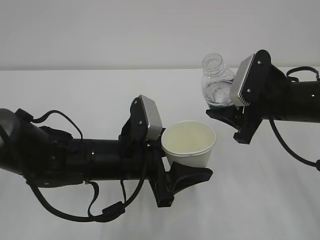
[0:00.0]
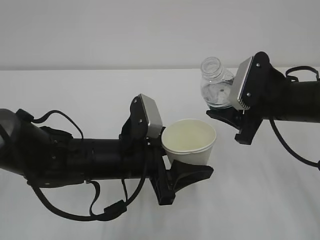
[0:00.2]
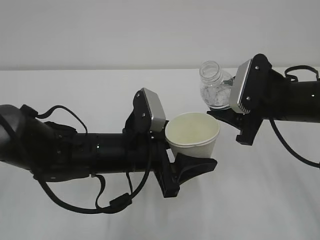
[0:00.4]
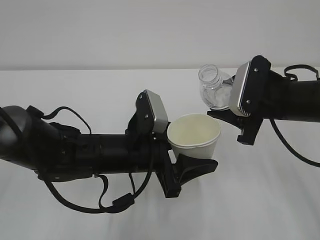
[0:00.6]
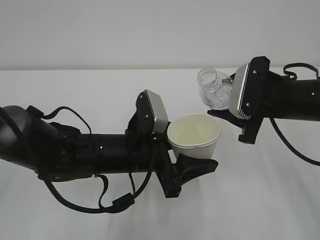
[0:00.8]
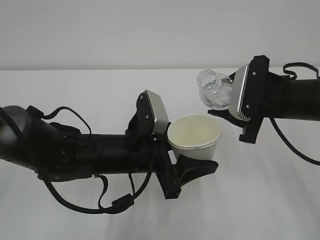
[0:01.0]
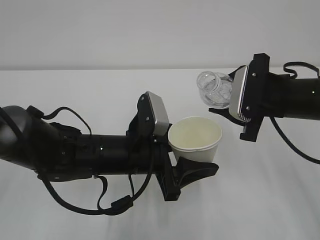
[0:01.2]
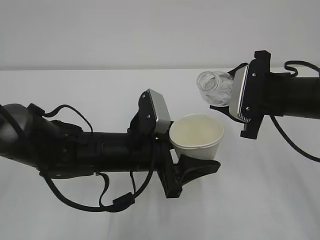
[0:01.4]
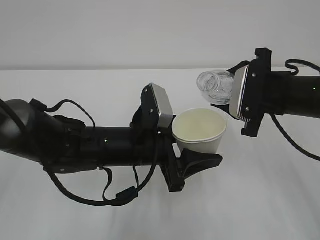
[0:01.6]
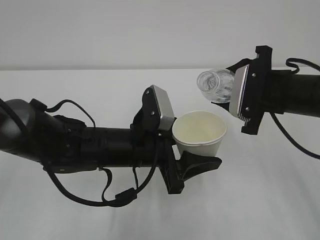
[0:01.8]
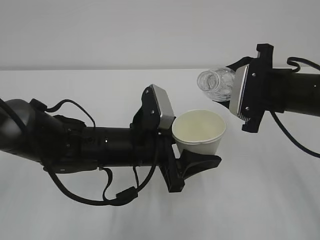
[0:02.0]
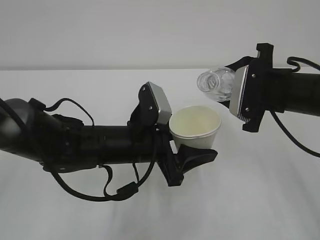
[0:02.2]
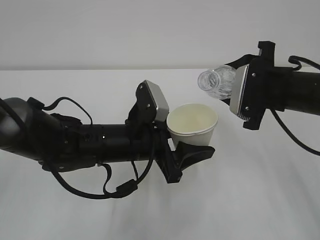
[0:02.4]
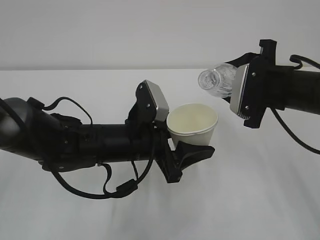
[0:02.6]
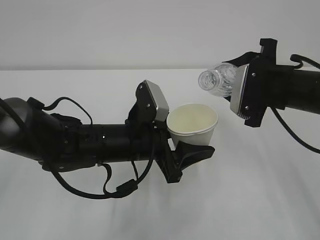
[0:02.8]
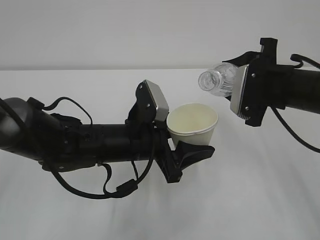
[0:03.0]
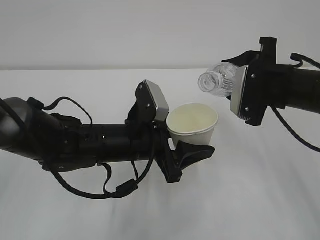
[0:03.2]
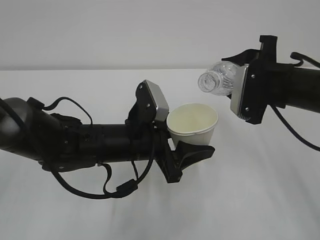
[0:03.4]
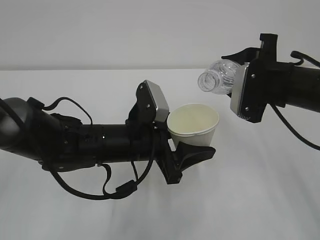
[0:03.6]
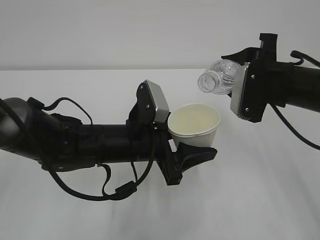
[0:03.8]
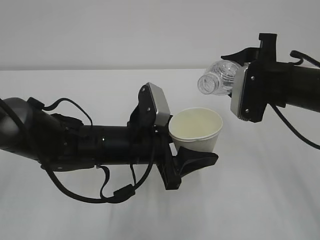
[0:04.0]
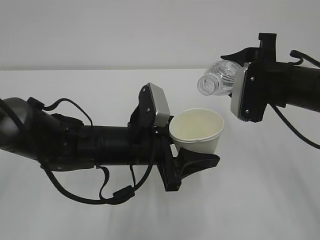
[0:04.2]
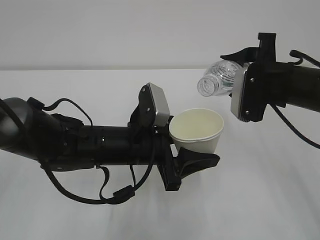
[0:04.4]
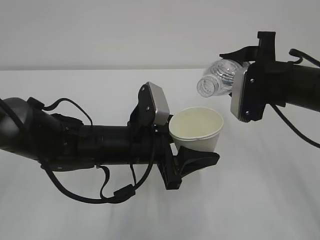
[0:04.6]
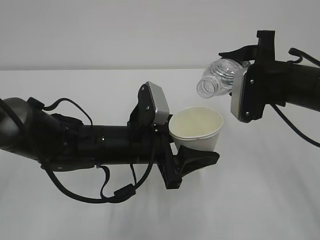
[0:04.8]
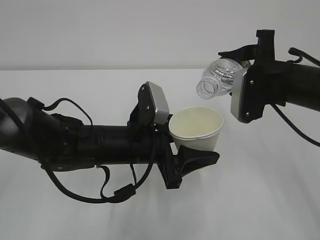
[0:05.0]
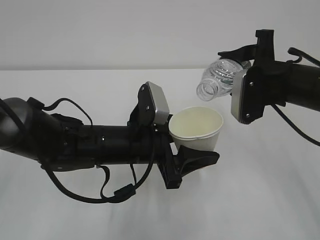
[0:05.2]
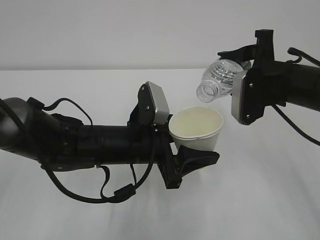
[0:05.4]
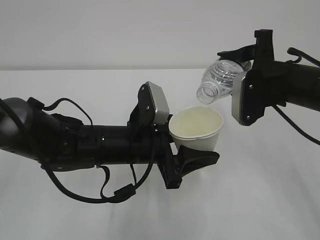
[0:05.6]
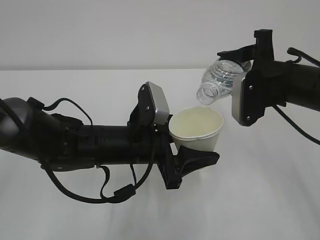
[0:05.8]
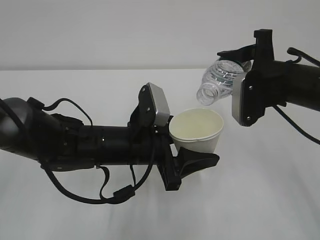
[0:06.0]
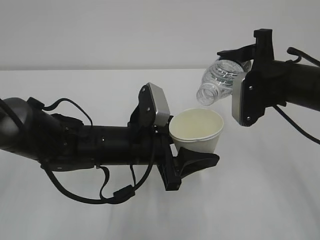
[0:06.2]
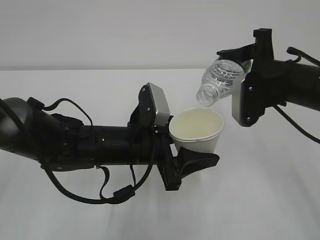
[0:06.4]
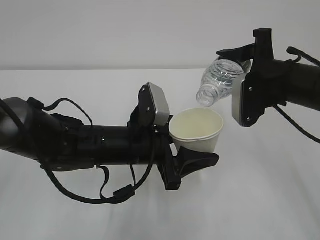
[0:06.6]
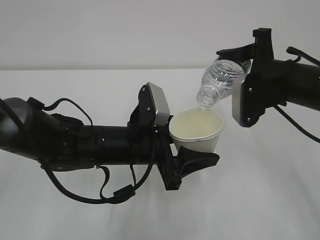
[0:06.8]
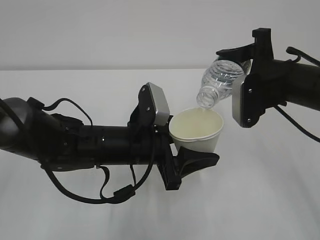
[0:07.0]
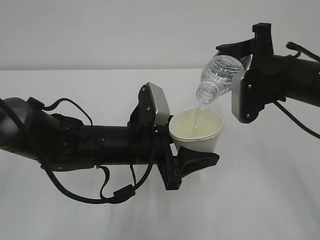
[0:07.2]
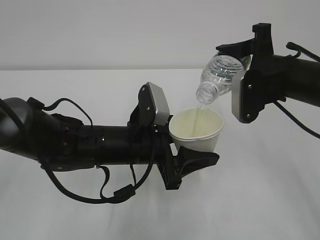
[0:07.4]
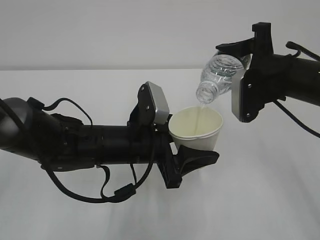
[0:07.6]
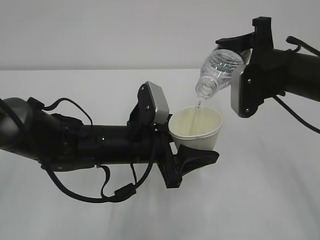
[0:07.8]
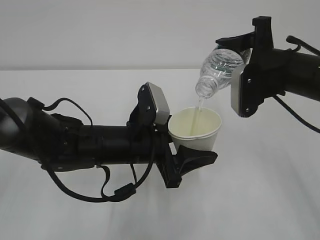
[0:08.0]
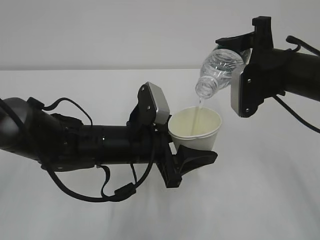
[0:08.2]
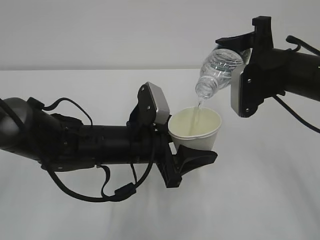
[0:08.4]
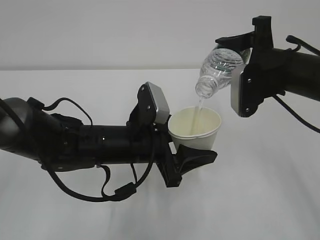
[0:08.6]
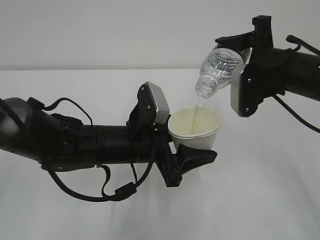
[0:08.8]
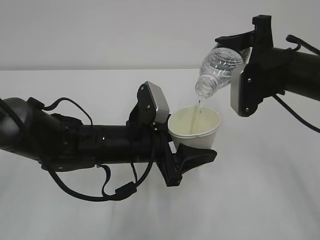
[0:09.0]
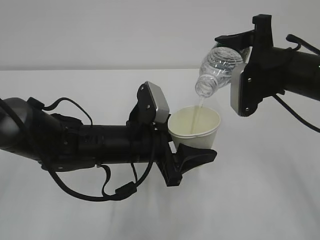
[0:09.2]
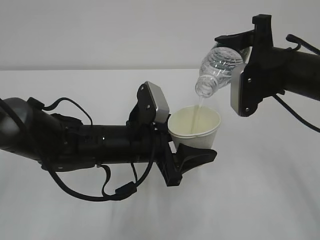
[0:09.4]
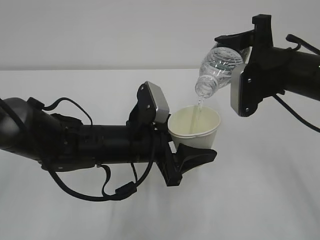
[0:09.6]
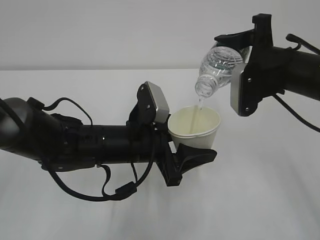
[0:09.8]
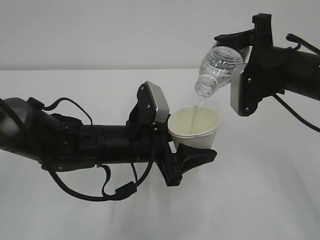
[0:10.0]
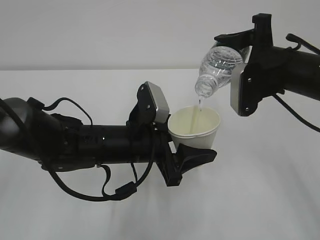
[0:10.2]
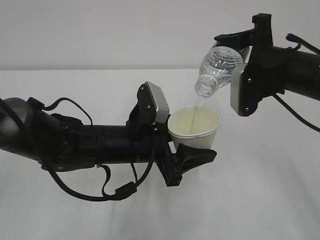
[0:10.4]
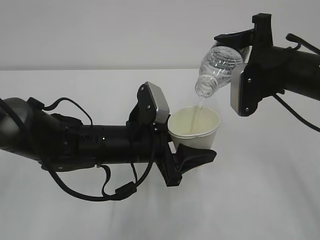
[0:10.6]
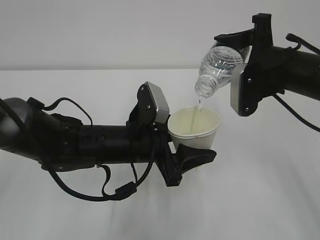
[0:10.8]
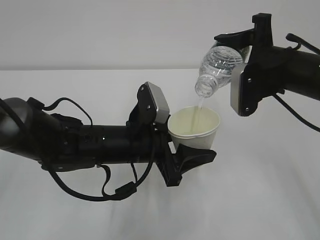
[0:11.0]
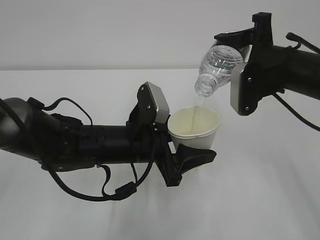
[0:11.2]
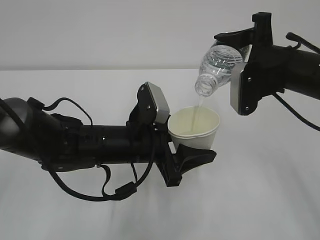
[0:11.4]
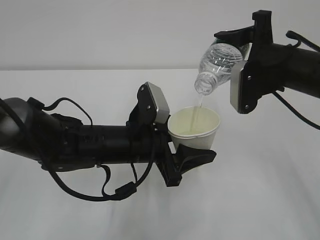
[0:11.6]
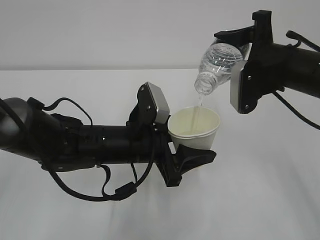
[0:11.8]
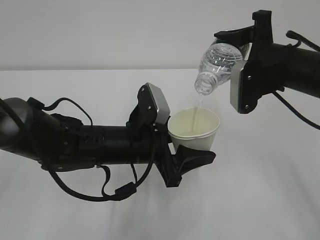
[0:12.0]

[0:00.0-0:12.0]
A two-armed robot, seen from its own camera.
0:01.6 to 0:04.4: The grippers make only small movements.
0:04.4 to 0:07.6: The grippers move only a little.
0:07.6 to 0:12.0: The two grippers keep their place.

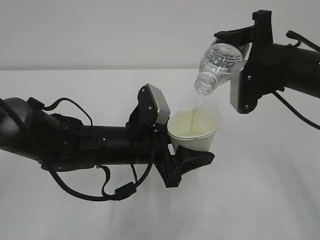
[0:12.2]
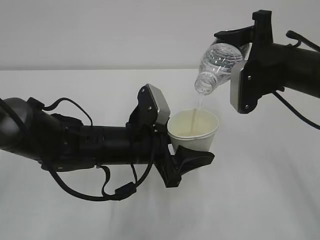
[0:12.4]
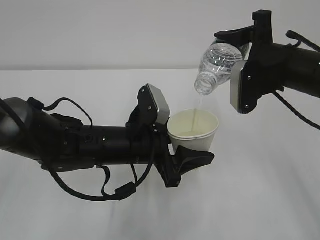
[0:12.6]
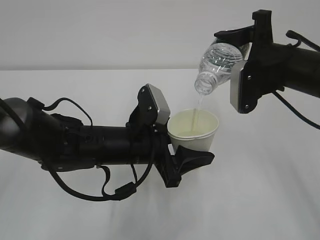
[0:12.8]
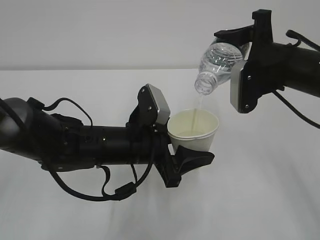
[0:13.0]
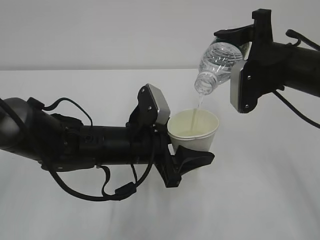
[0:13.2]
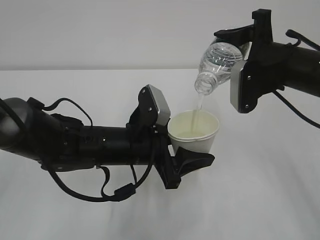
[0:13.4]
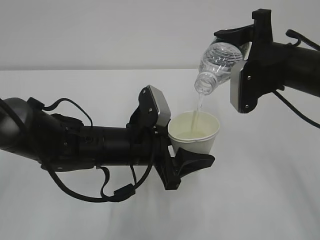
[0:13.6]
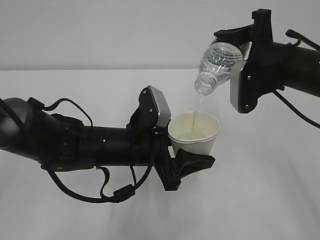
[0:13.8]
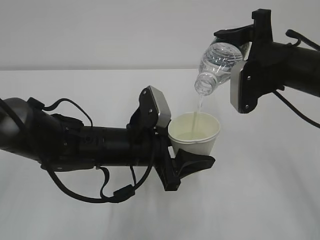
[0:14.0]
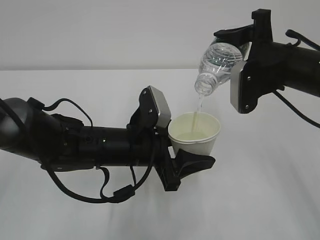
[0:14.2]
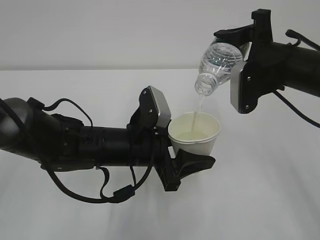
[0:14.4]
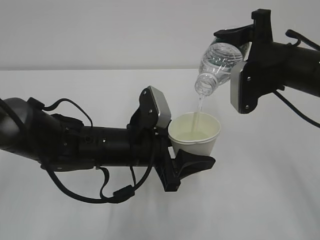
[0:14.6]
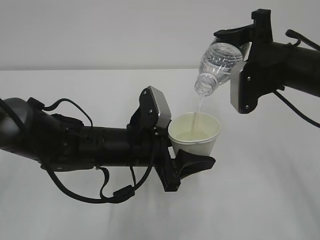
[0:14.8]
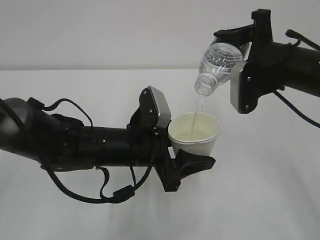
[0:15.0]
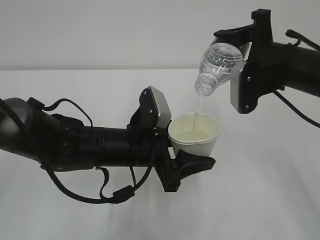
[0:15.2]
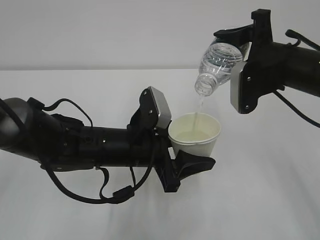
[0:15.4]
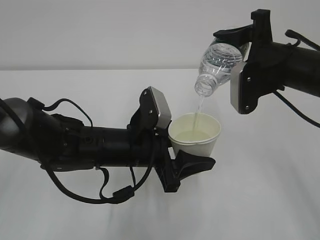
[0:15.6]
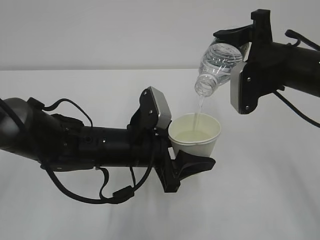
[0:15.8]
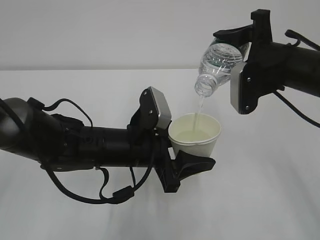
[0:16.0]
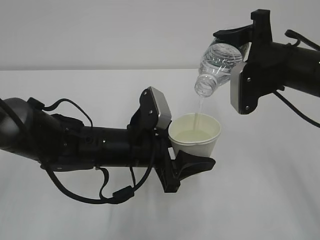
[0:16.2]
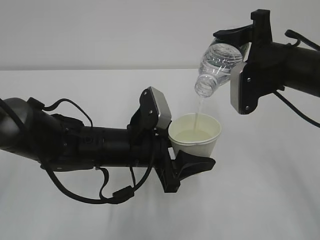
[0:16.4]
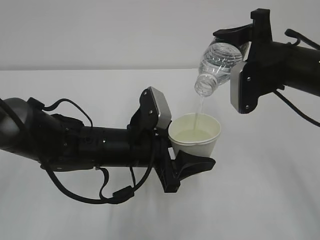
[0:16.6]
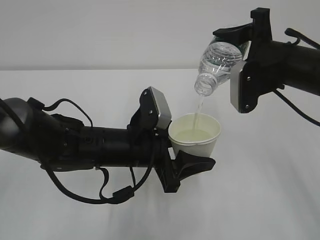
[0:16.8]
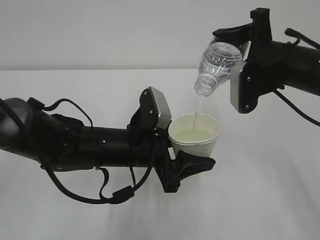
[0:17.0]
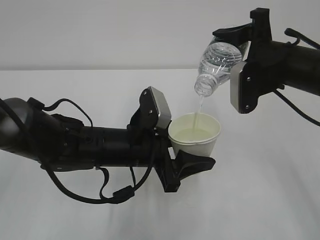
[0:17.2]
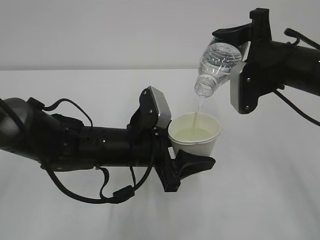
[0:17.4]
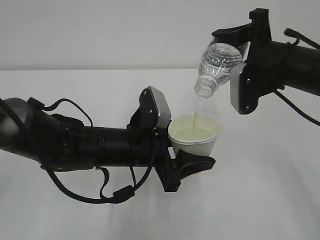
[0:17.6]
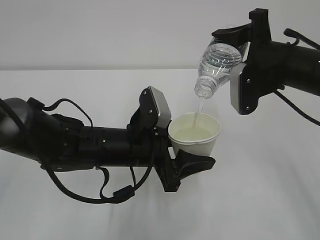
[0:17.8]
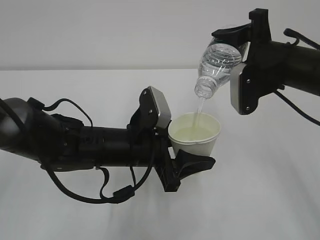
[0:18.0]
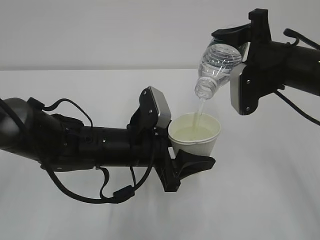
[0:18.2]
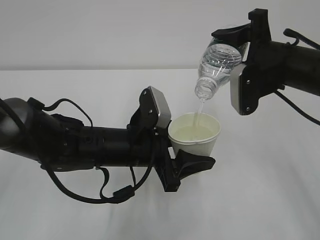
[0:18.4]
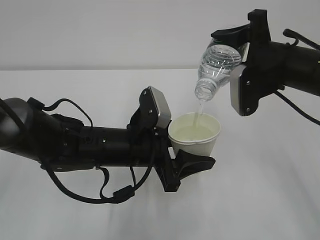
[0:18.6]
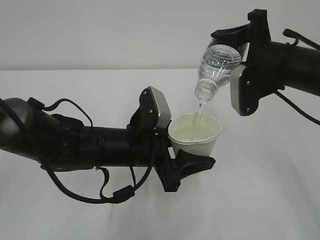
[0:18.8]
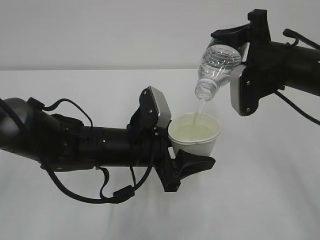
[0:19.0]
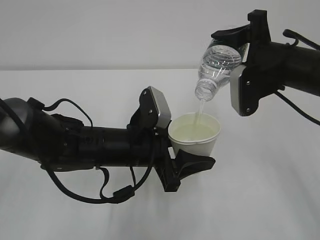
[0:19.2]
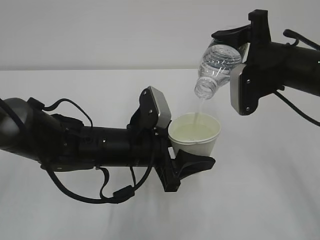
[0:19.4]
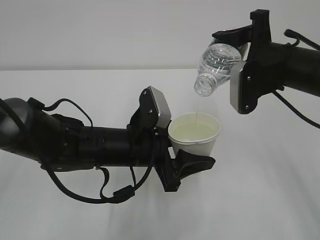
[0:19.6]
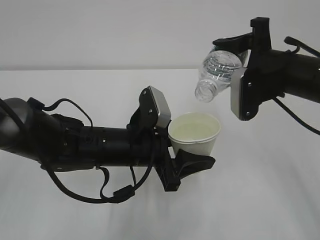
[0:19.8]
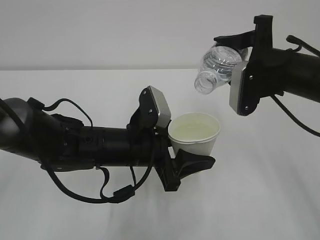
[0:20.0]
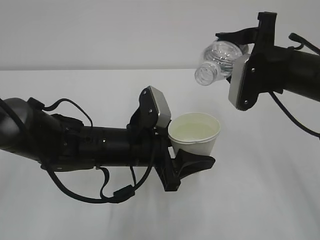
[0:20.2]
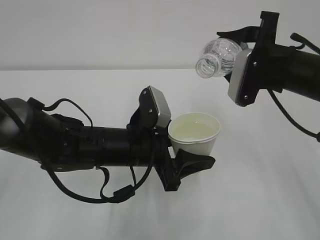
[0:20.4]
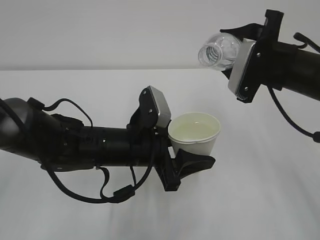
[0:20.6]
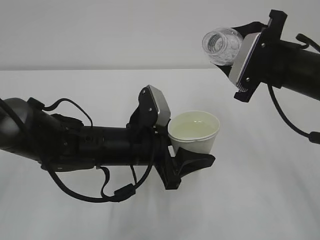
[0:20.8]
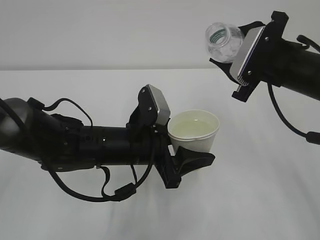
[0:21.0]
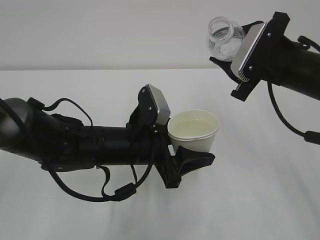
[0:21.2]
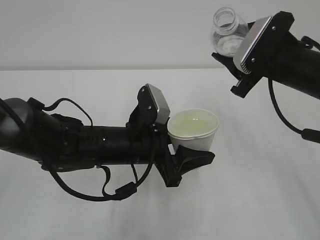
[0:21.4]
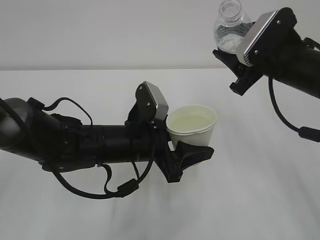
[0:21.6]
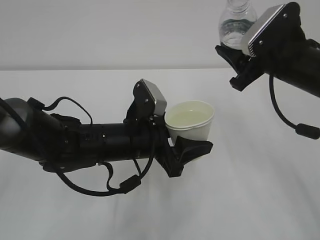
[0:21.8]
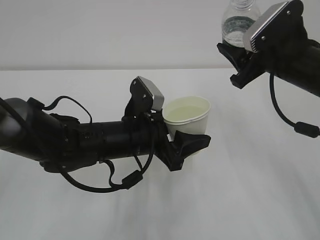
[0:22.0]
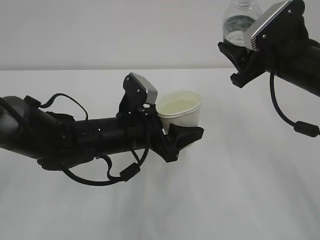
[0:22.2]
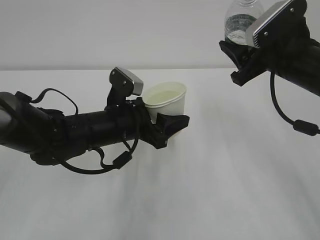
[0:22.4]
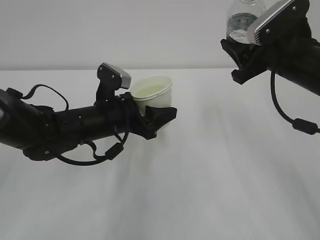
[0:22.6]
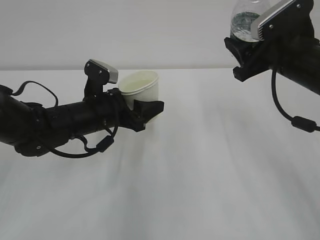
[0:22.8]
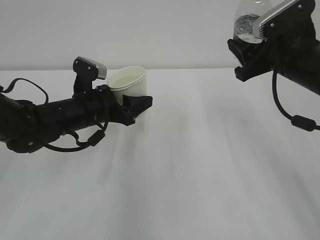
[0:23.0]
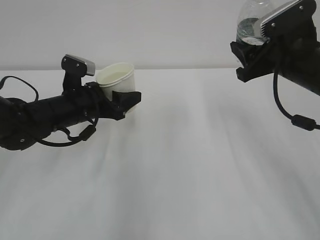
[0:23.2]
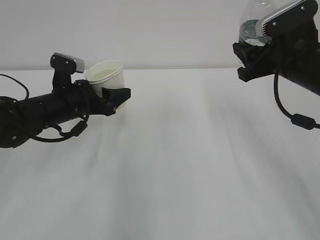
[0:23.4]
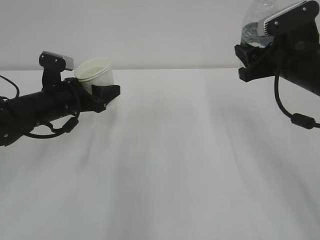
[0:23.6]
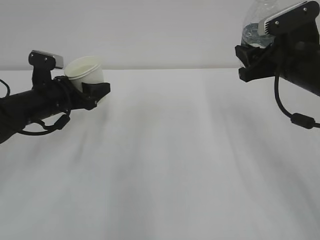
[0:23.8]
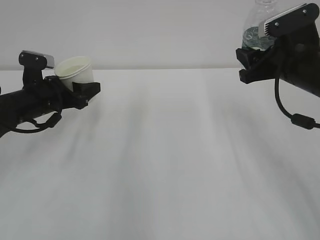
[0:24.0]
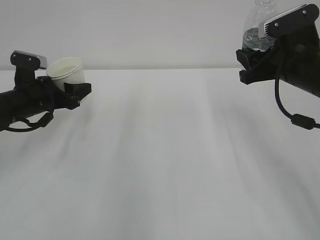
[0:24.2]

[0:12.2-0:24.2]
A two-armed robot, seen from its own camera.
0:12.2 to 0:16.6: Both grippers stay put.
0:16.6 to 0:18.2: Both grippers stay put.
0:18.2 to 0:19.8: The grippers make only small movements.
0:21.2 to 0:22.6: The left gripper heads forward and to the left, covering roughly 10 cm.
0:22.6 to 0:24.2: The left gripper is displaced to the left and forward by approximately 15 cm.
